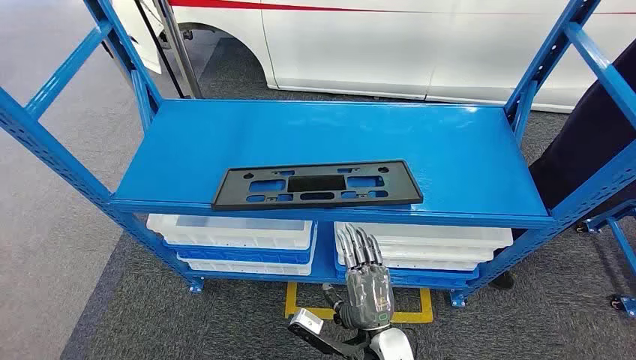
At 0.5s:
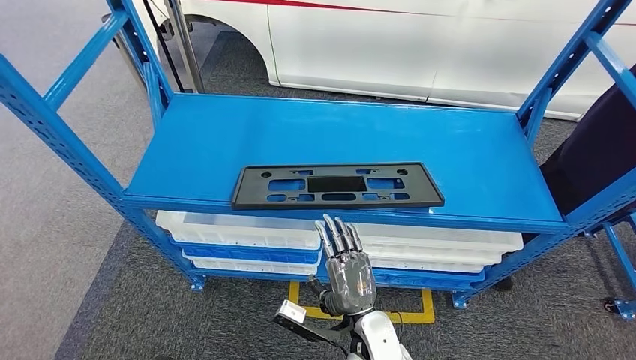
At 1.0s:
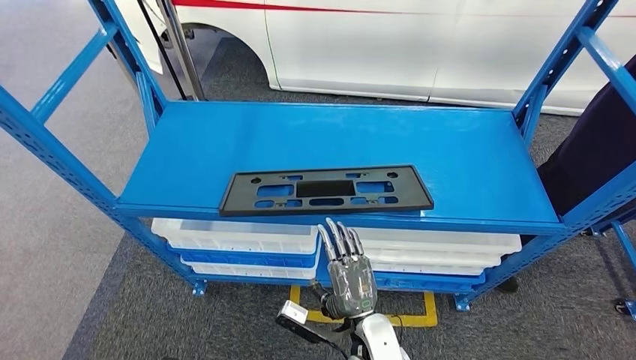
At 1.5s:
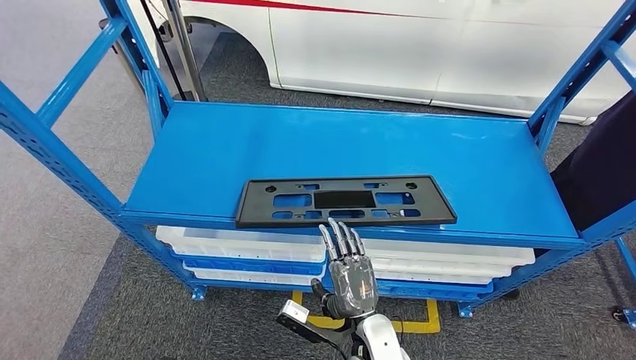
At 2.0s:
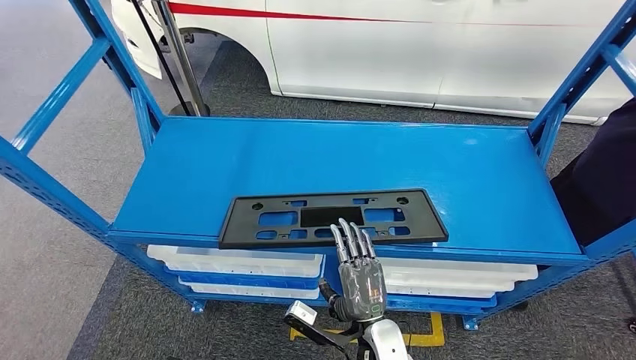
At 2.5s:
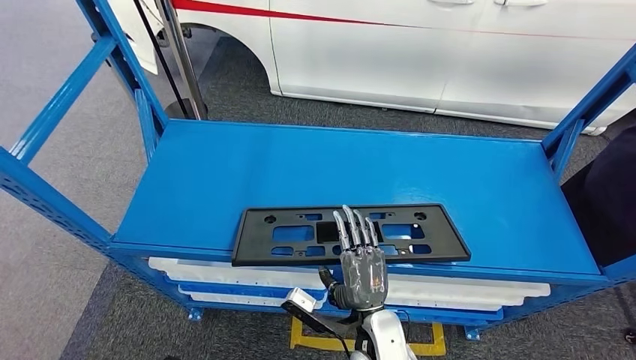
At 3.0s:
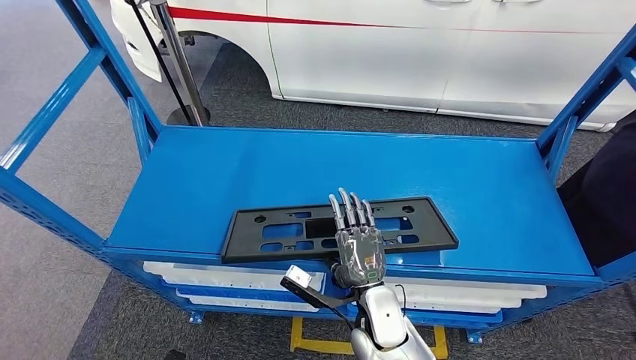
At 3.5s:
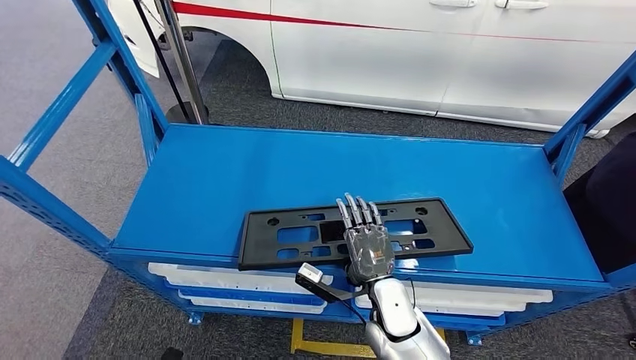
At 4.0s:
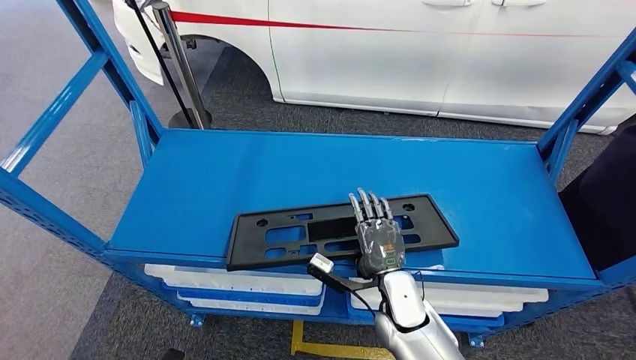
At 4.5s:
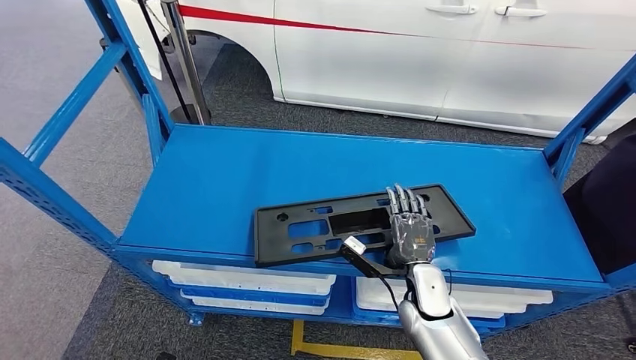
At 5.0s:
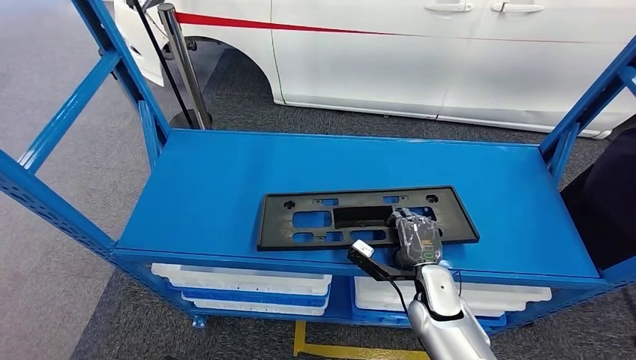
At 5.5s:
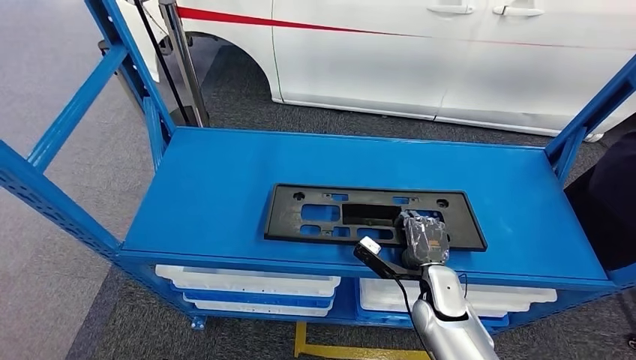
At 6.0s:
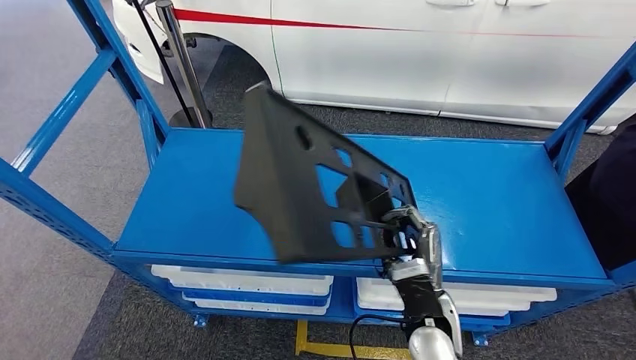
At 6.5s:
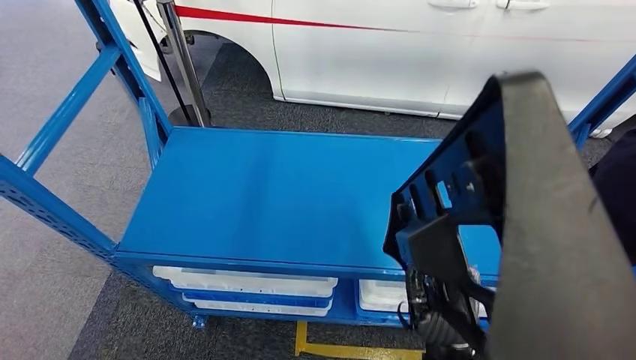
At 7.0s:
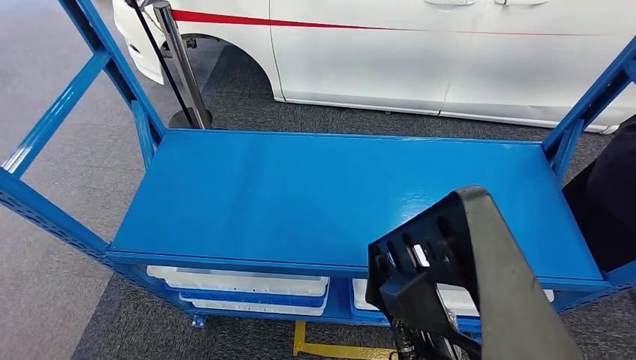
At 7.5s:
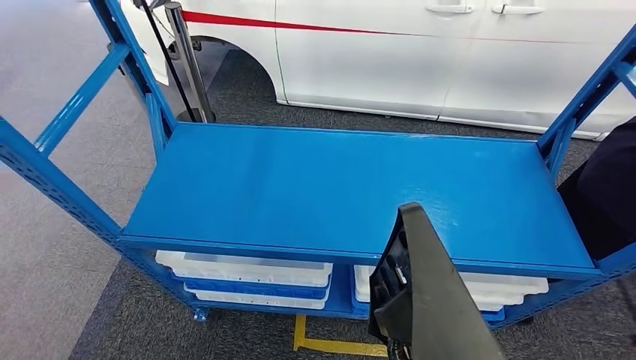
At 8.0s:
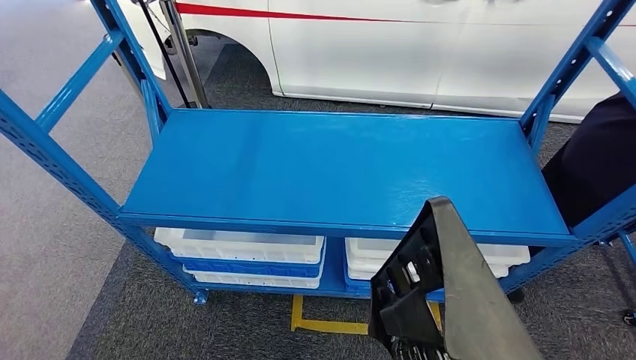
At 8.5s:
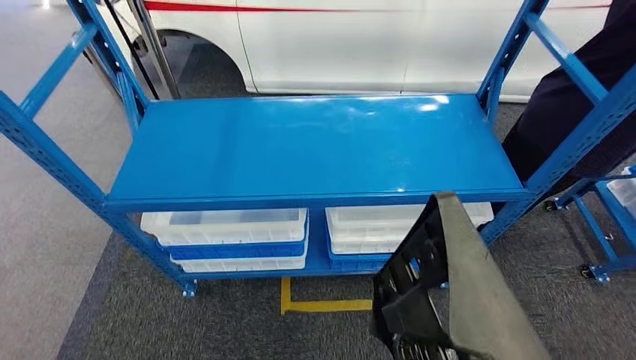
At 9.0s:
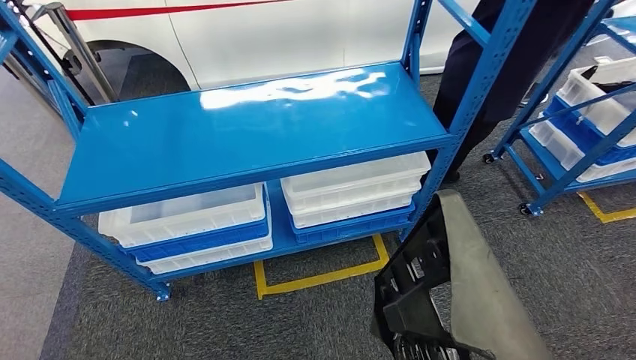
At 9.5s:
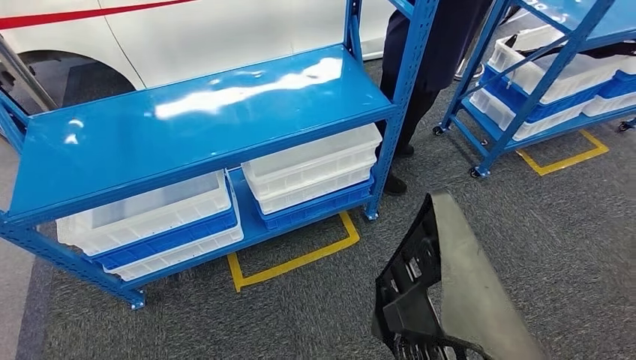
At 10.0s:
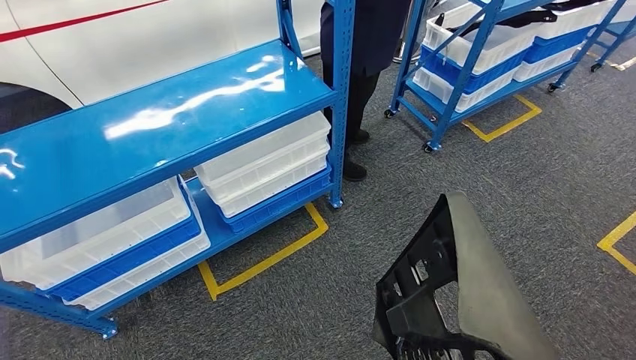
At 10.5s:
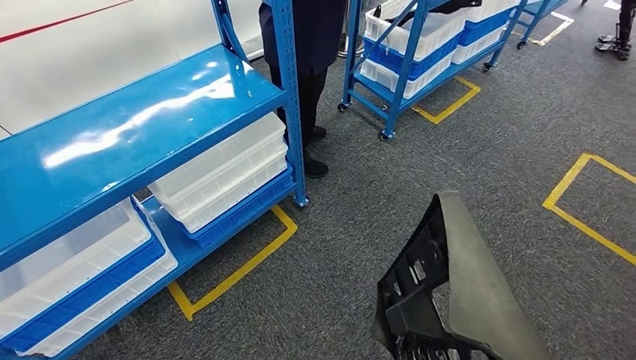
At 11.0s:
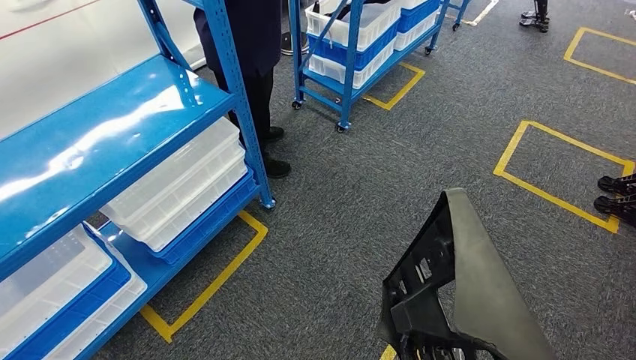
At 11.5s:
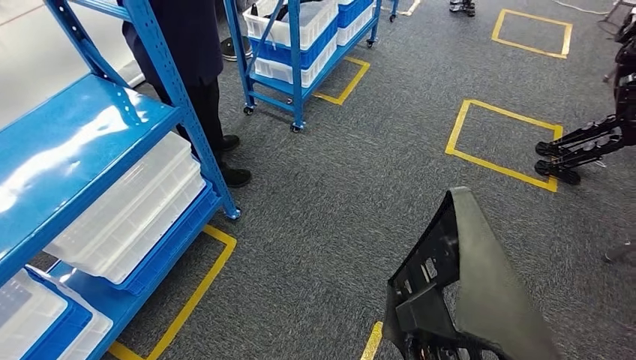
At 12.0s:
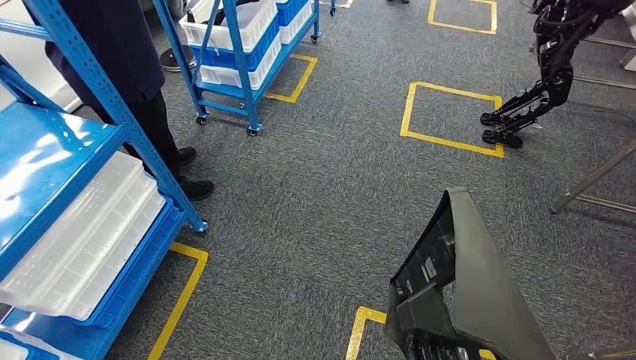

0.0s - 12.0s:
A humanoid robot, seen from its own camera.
Step, 0.0s - 7.5s: Pick up the large parts from the shelf.

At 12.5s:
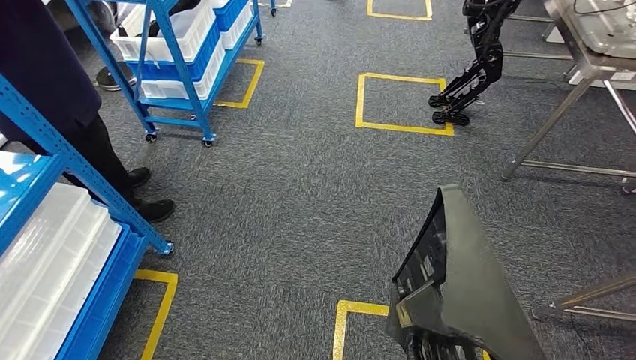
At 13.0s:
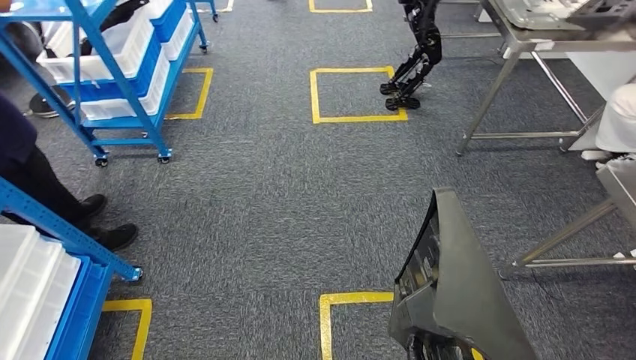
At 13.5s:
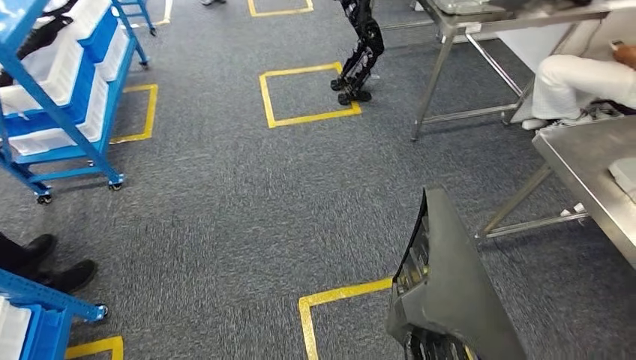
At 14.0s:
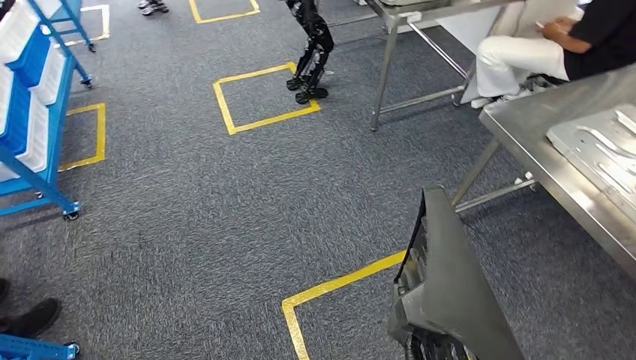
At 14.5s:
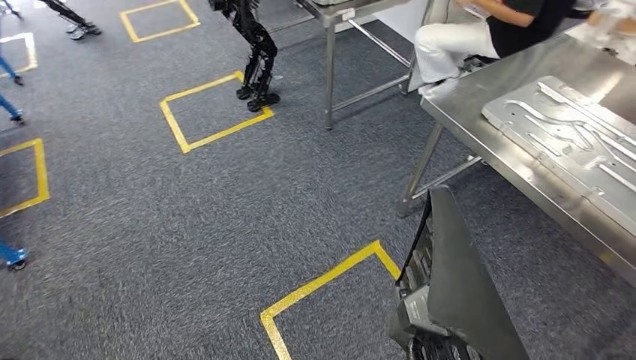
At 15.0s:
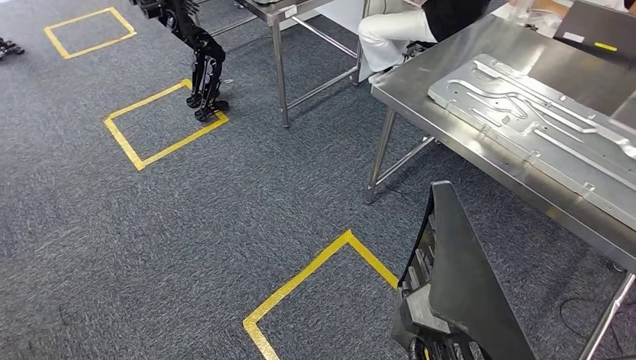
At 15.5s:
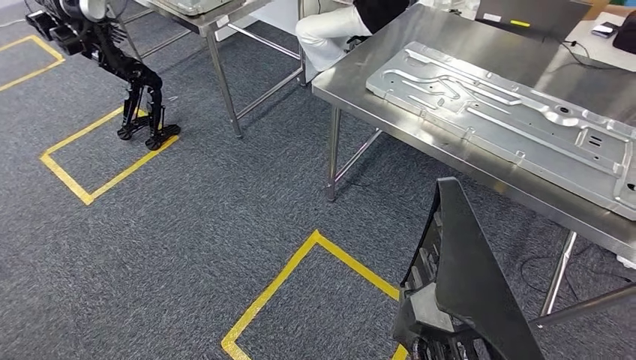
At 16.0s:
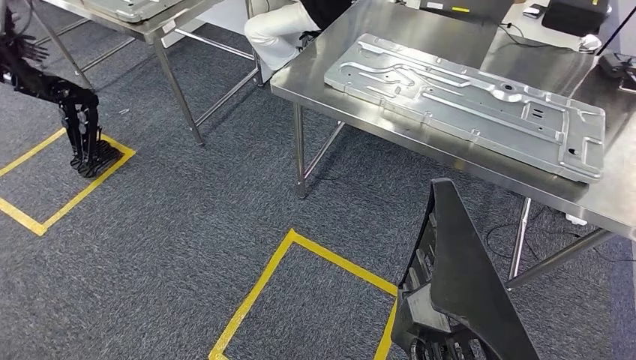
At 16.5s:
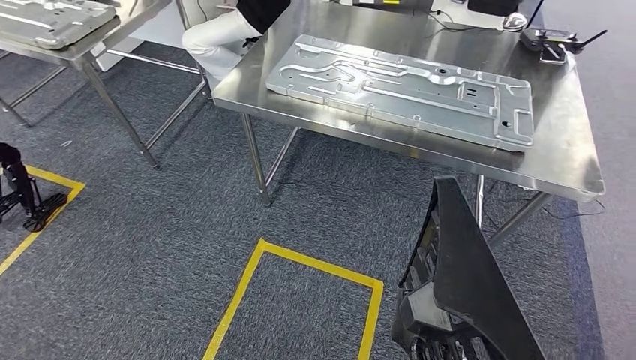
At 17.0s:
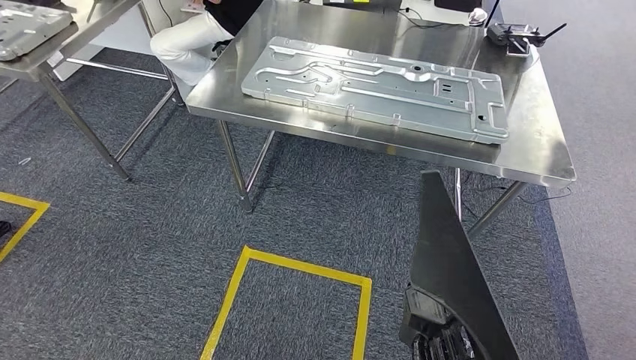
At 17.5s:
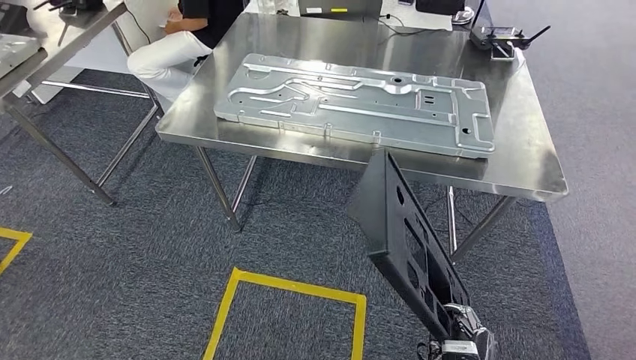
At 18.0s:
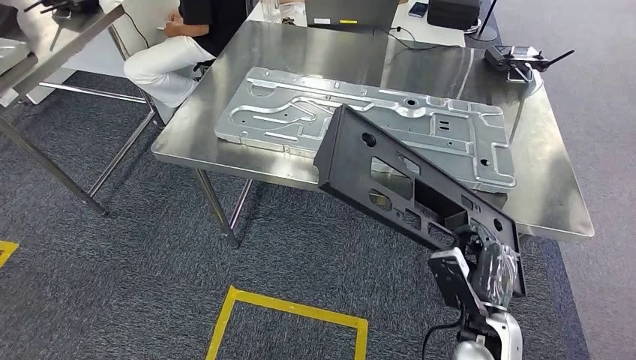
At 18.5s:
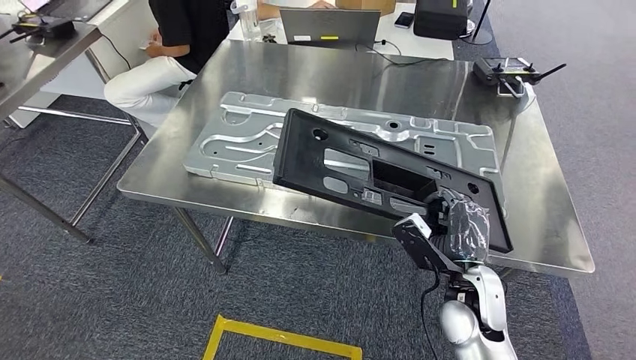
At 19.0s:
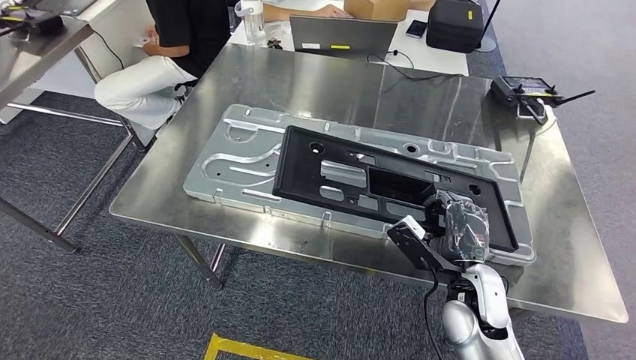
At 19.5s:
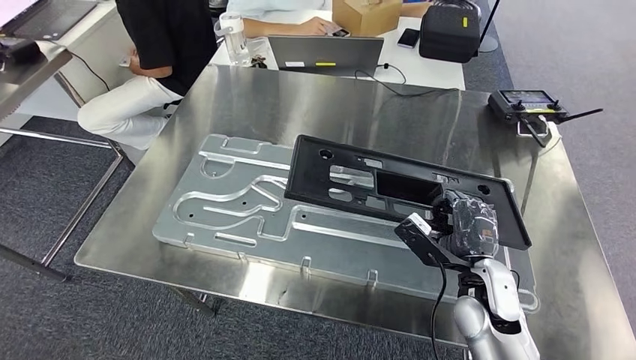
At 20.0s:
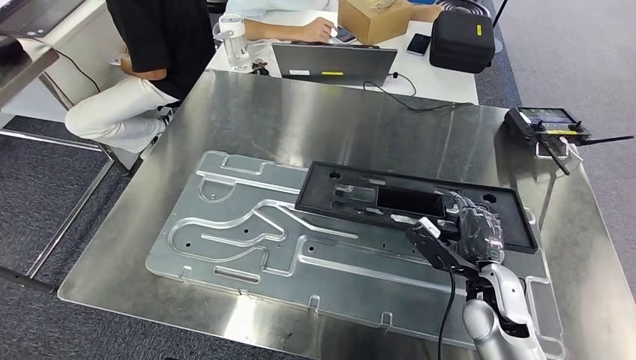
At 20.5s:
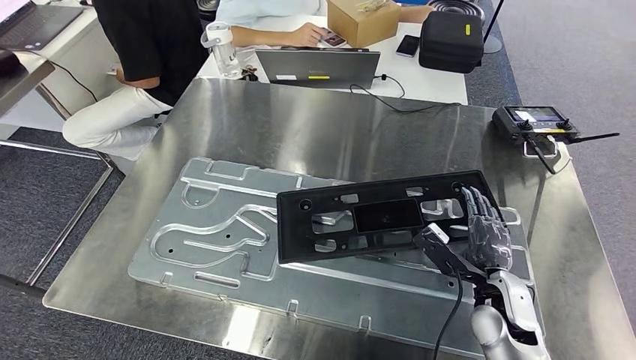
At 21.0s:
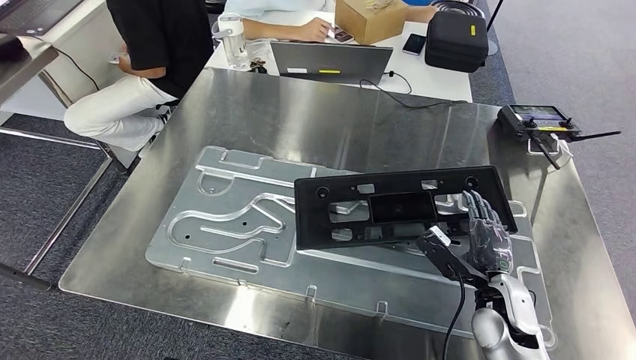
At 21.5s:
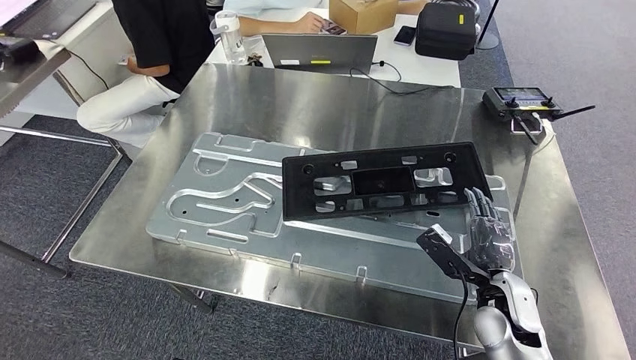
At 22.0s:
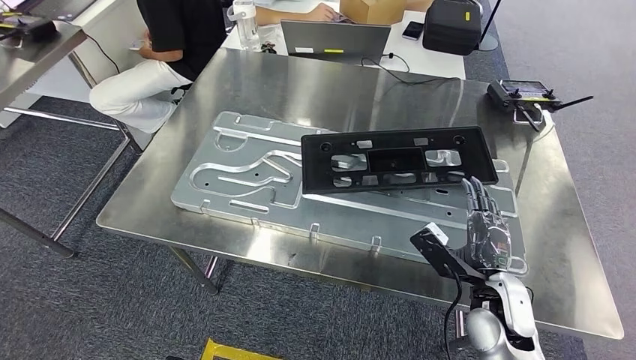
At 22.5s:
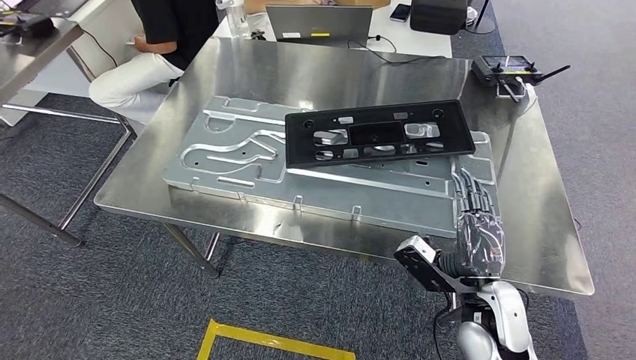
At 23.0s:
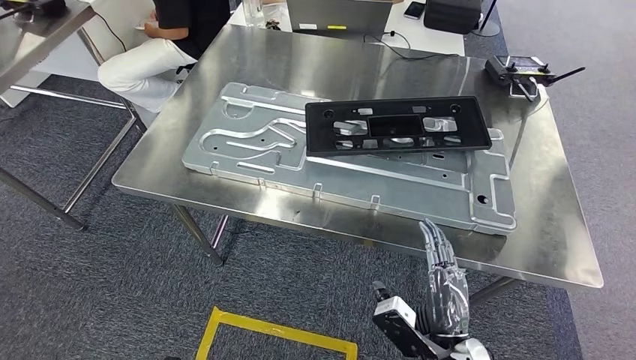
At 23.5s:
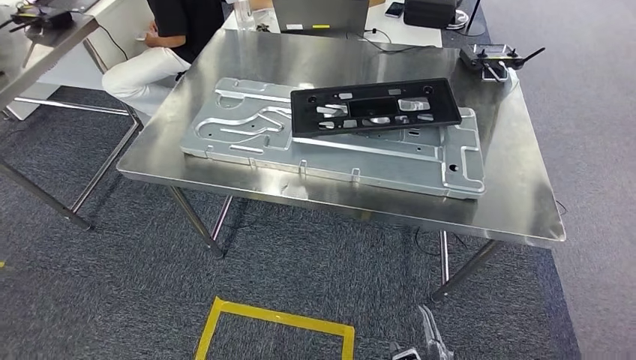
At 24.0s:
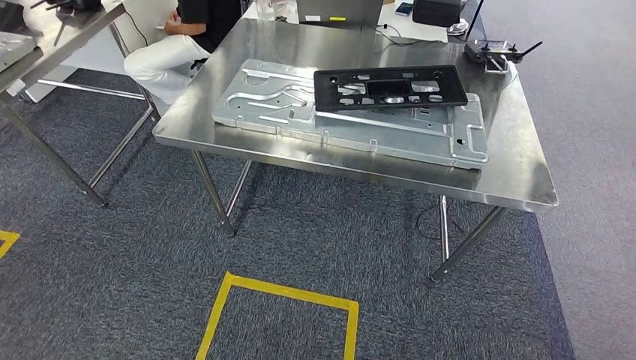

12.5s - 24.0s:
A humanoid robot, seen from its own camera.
Step, 12.5s - 19.0s: Move the large parts to the workbench.
Step, 20.5s - 23.0s: Insert the large parts into the corresponding slots on the workbench.
